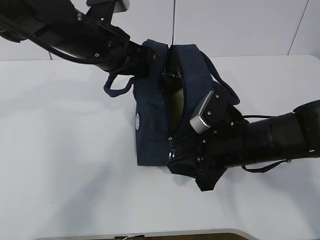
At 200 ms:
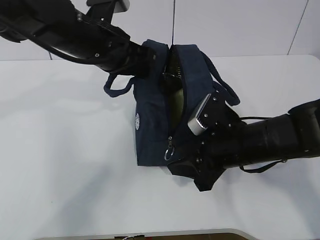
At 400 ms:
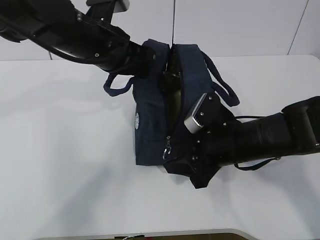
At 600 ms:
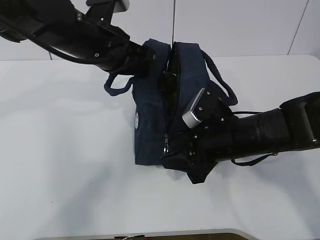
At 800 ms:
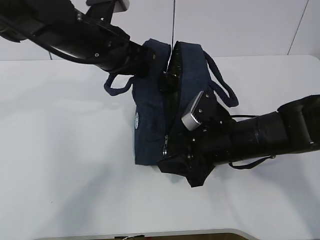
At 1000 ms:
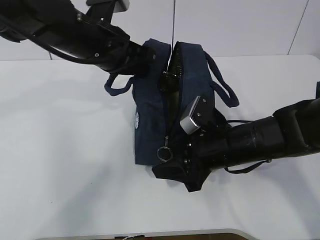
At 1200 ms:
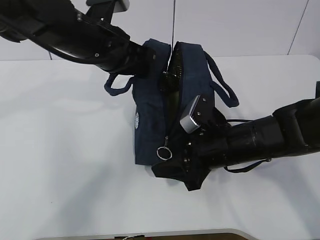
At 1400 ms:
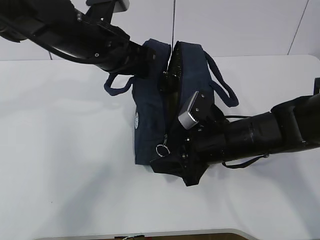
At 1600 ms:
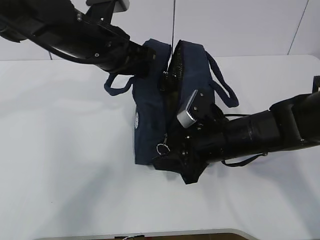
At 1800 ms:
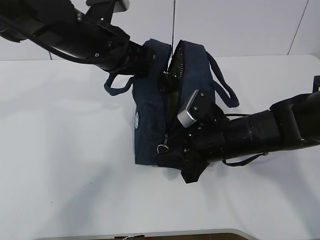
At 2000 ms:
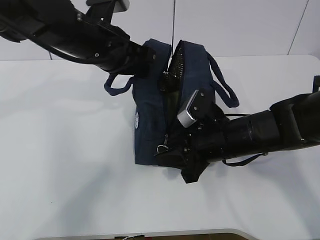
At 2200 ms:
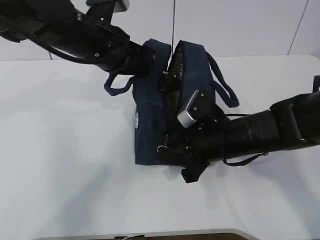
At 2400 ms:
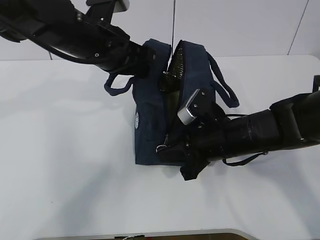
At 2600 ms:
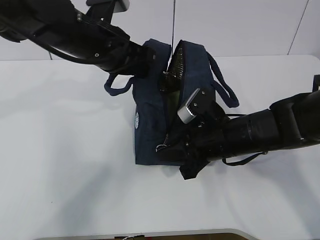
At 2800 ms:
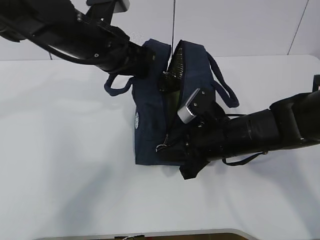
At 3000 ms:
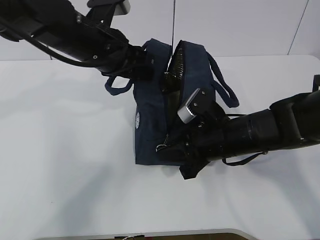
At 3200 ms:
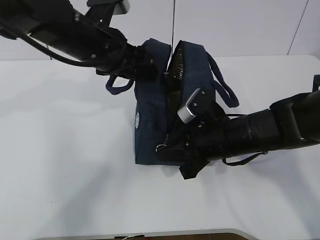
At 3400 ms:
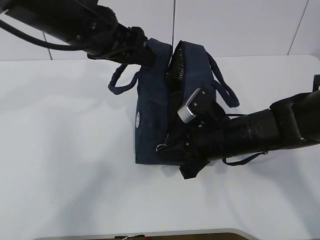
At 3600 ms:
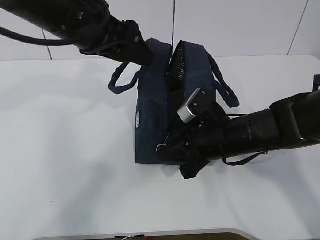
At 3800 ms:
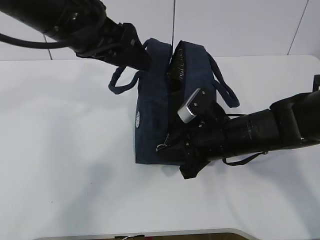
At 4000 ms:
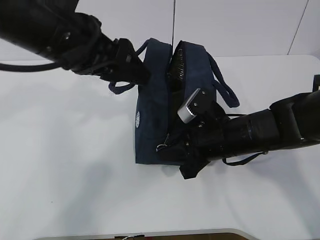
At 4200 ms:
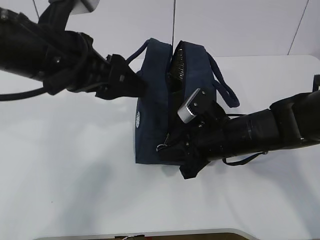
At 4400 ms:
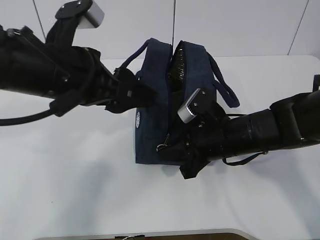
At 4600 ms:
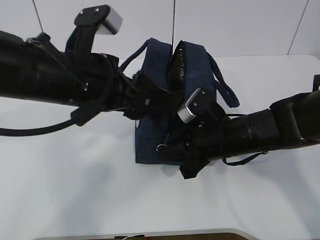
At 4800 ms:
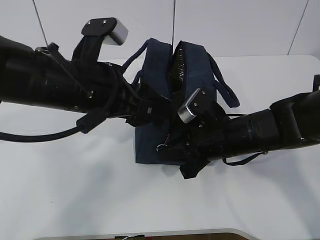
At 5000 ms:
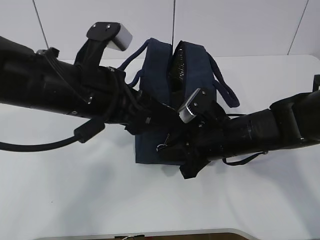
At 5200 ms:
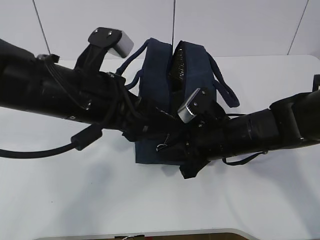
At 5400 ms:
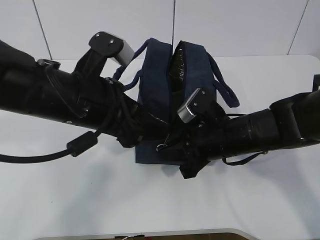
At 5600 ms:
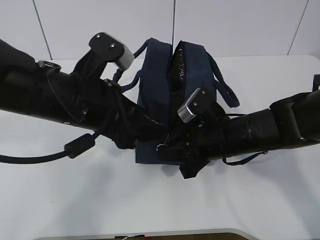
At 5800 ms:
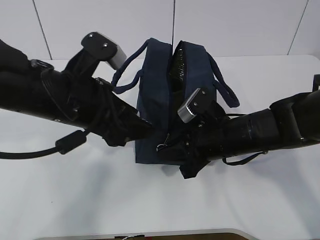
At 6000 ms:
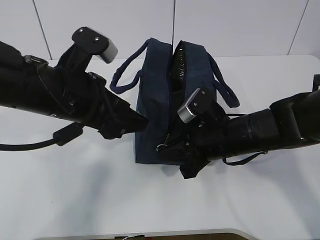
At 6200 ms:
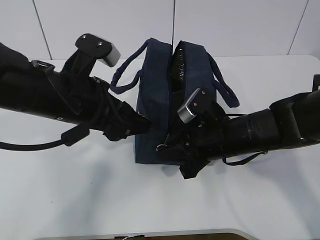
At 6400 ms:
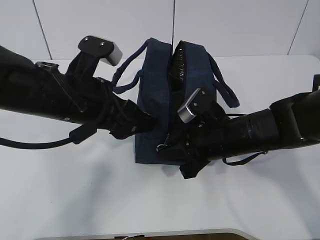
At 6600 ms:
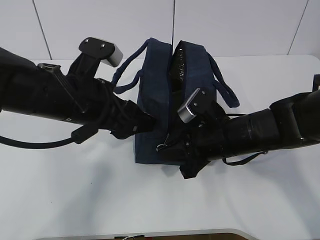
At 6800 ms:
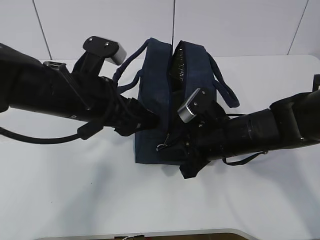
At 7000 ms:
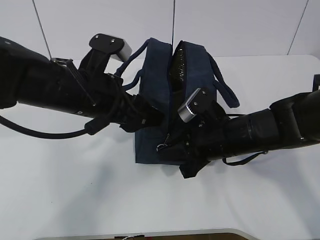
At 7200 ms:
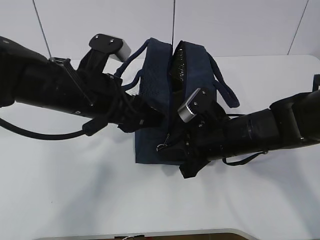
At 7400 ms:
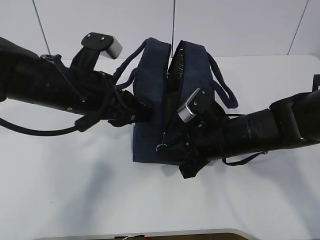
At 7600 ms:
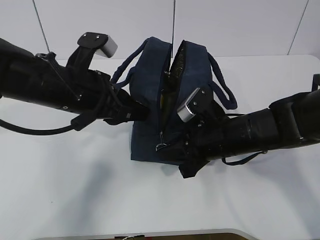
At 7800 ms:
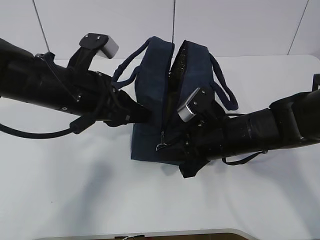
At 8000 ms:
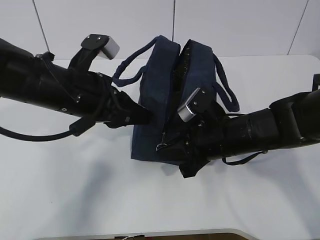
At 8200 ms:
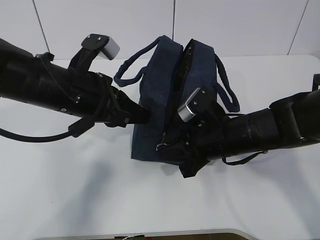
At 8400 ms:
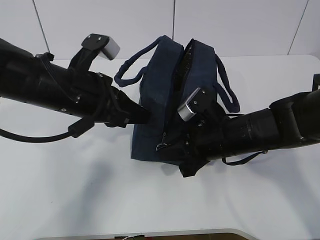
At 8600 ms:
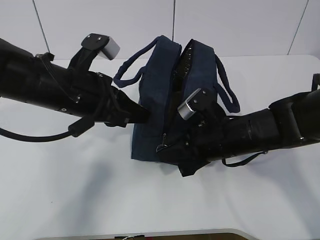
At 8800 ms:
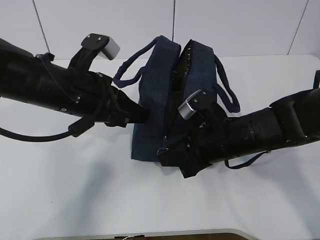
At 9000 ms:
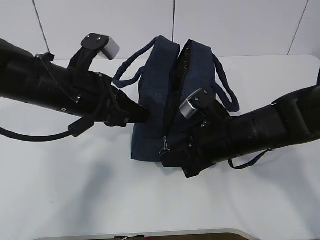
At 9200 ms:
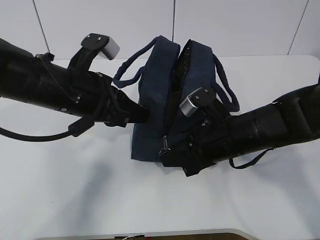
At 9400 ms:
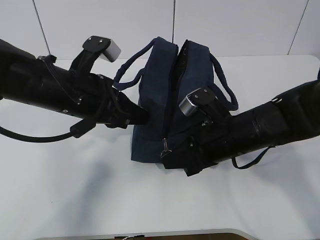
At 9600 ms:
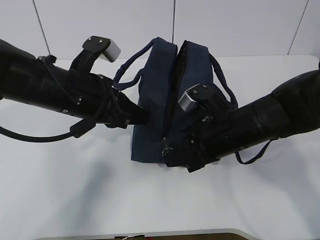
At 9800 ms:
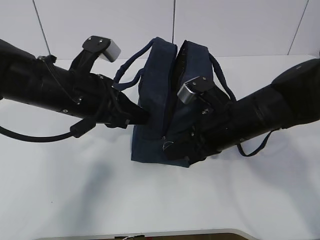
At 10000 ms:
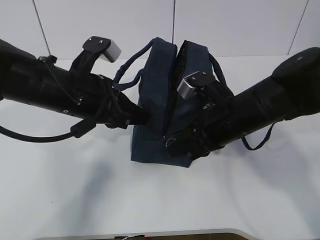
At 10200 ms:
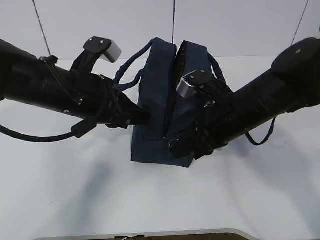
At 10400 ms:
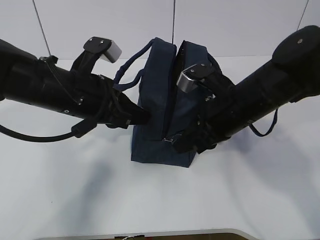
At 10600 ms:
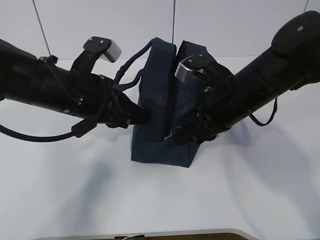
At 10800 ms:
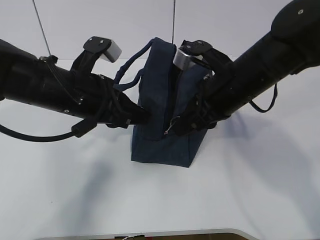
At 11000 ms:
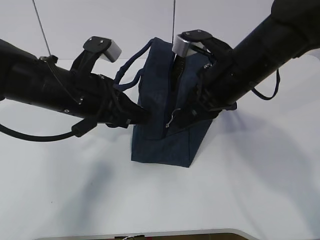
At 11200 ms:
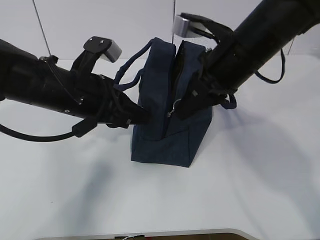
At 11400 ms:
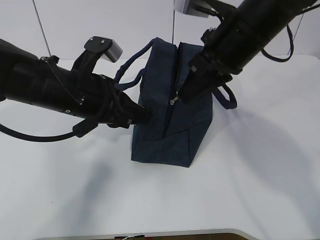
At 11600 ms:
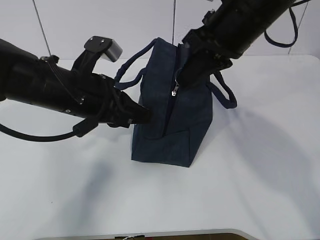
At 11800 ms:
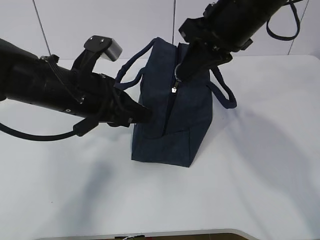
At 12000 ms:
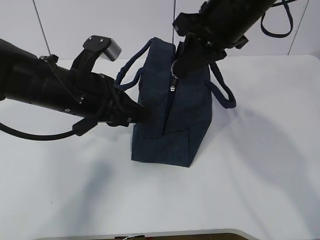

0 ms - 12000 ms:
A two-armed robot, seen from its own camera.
0 ms - 1600 ms: The grippers make only small movements.
1600 ms - 3000 ms: The left gripper opens up; the right gripper closes.
3000 ms - 4400 ms: The left gripper heads backward, covering approximately 10 cm, and opens.
4400 ms - 6000 ms: The grippers move only a little.
6000 ms - 7600 ms: The left gripper closes its fingers.
7600 ms - 9000 ms: The left gripper closes.
9000 ms - 10400 ms: The right gripper moves upward, approximately 5 cm.
10400 ms - 12000 ms: The right gripper moves upward, about 15 cm.

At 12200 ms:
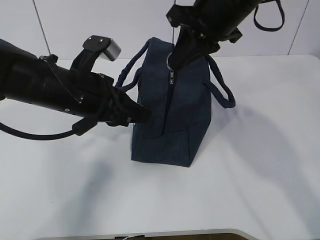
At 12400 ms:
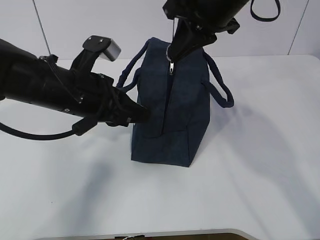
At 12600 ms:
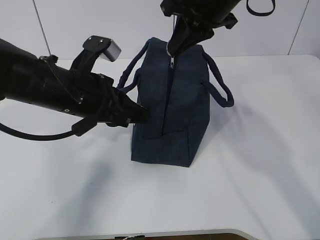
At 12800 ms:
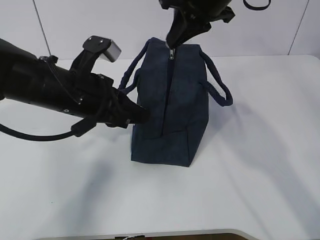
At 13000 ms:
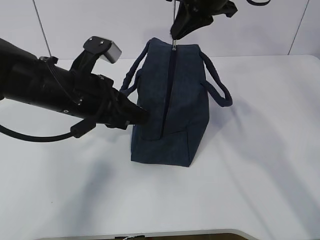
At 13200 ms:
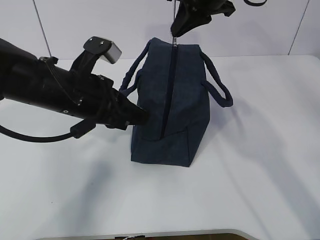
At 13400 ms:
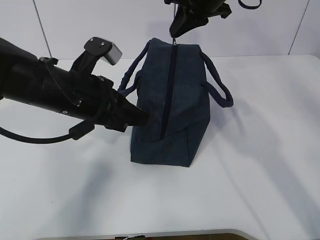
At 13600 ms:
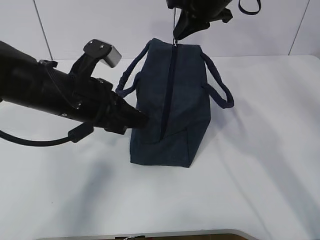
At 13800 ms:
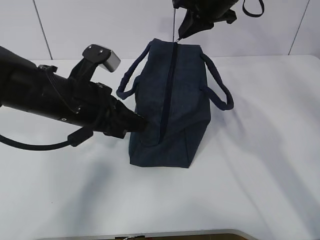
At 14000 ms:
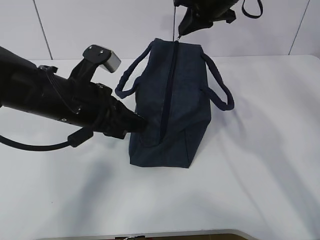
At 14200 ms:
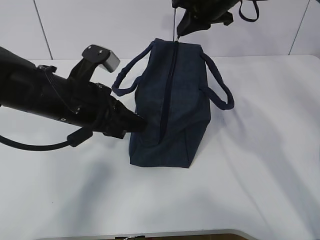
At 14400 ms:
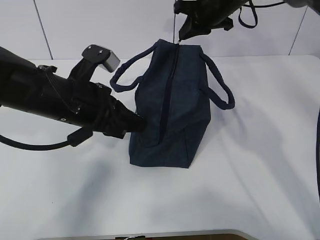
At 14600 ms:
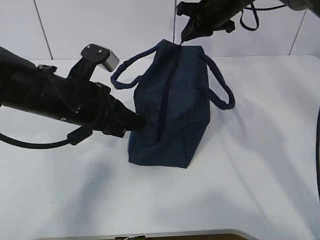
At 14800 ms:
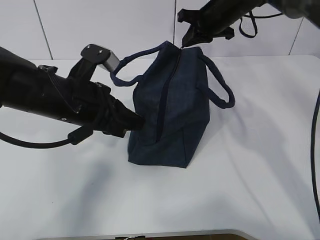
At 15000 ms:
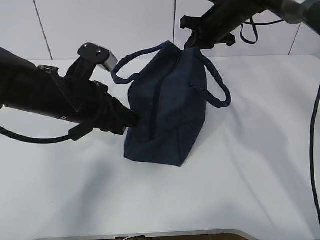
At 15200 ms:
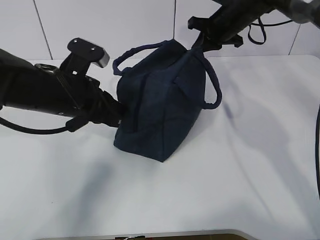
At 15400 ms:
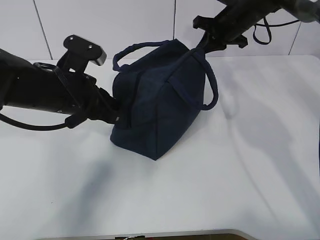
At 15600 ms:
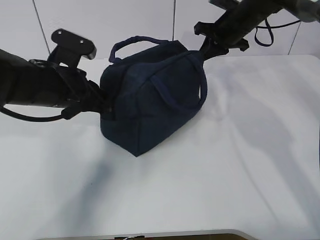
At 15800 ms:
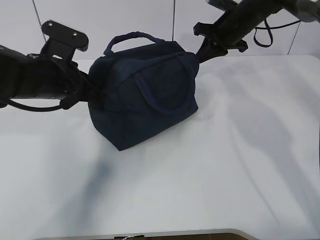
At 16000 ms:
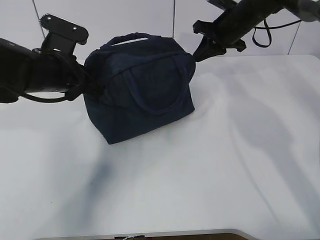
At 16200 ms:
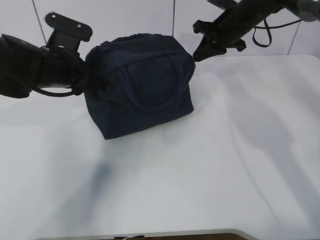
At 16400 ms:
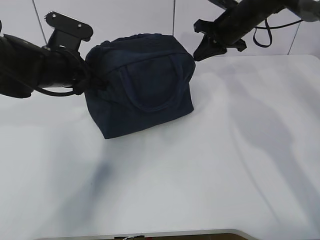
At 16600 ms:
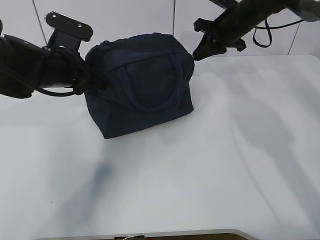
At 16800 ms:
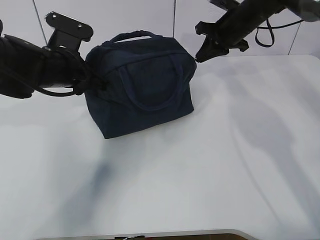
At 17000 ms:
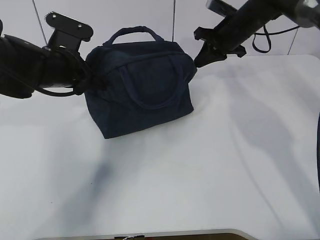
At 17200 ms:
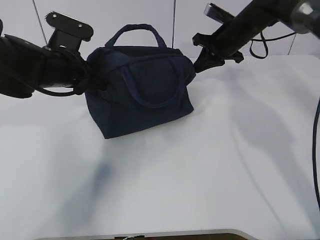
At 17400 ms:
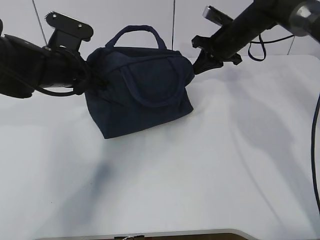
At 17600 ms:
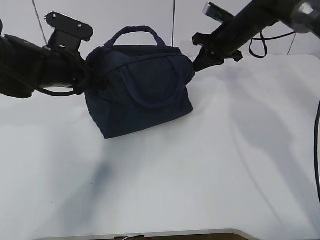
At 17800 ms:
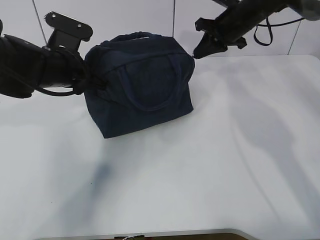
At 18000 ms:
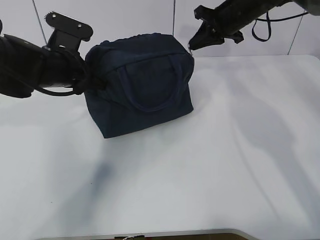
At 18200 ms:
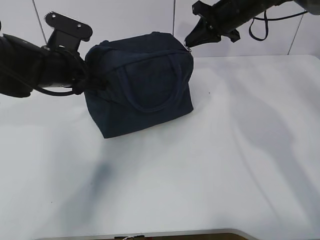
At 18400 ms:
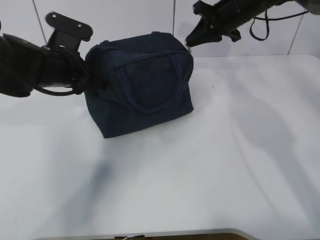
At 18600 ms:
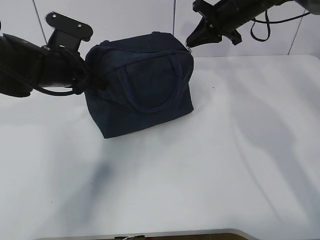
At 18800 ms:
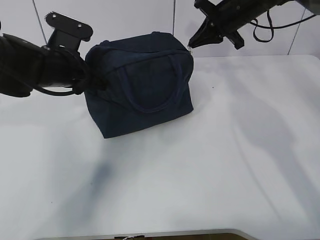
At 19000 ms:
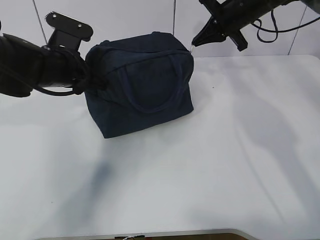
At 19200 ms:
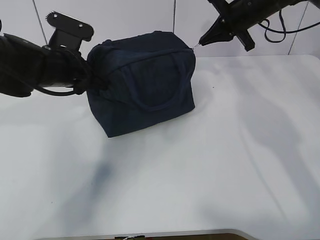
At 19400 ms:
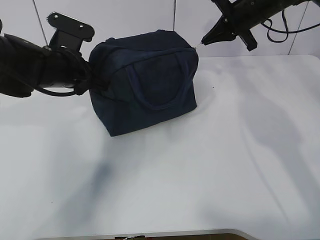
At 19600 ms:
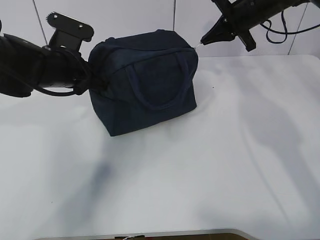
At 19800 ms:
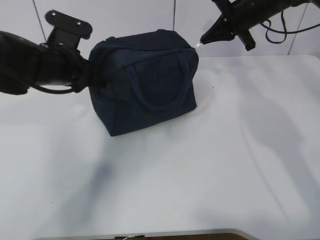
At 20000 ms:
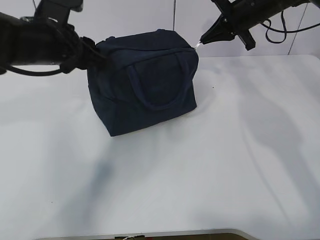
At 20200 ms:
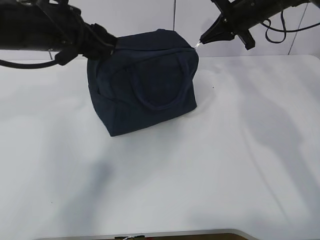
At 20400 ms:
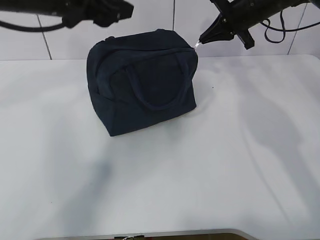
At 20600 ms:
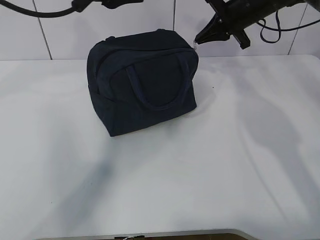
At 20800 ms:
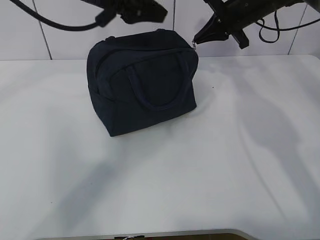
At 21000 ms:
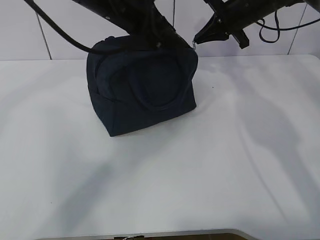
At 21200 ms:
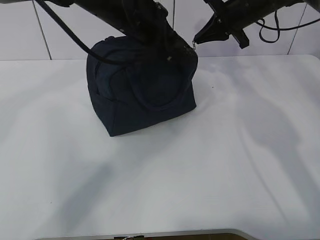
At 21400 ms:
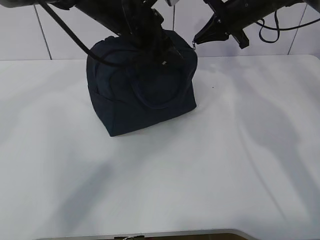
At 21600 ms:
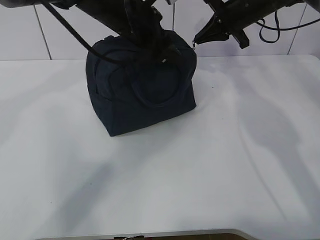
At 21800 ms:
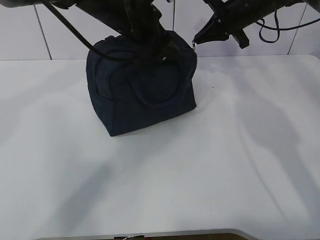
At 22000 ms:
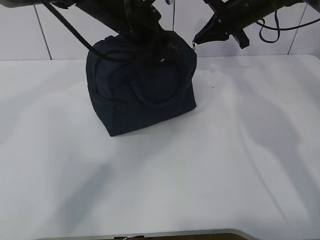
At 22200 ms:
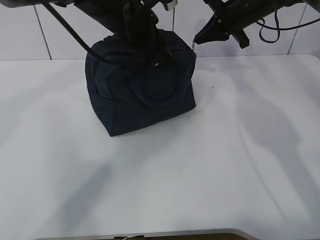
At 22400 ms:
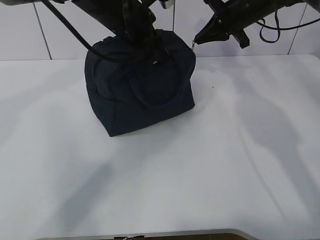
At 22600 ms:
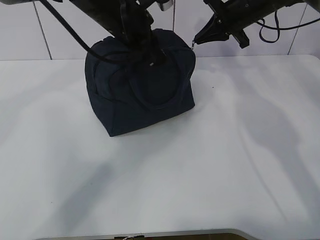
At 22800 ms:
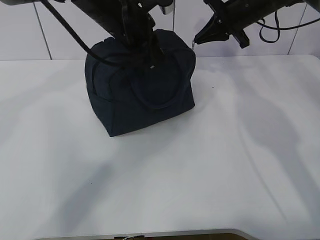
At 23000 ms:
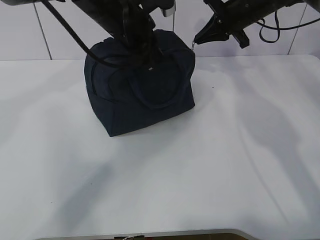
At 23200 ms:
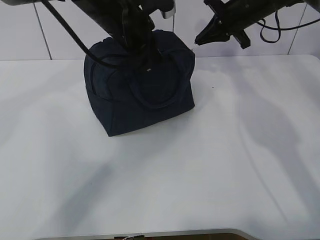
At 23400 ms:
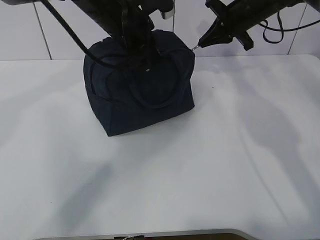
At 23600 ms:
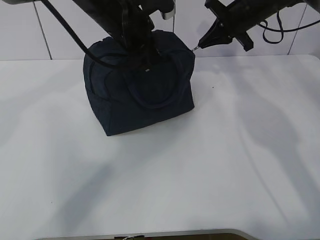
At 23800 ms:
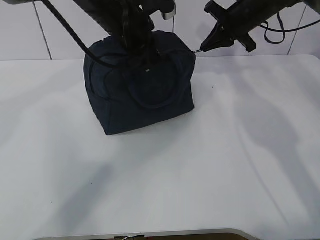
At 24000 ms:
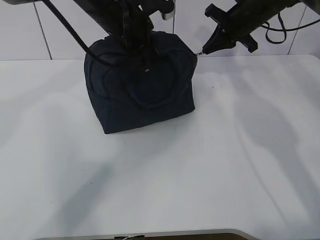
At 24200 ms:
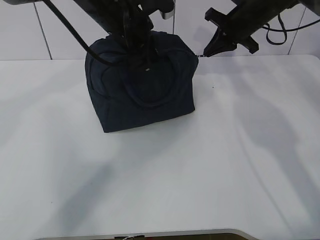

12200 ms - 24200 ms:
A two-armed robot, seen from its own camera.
Step, 15000 ms - 23600 ms: Pull the zipper with your right hand.
12200 ms - 13800 ms: The right gripper goes some 15 cm forward.
13800 ms - 15200 ms: The right gripper goes roughly 5 cm downward.
15200 ms - 16600 ms: The left gripper heads forward, covering roughly 5 cm.
16600 ms - 18200 ms: The grippers make only small movements.
19800 ms - 21200 ms: The left gripper moves to the right and upward, roughly 15 cm, and opens.
21200 ms - 22600 ms: The grippers make only small movements.
22600 ms - 24200 ms: The left gripper closes up.
